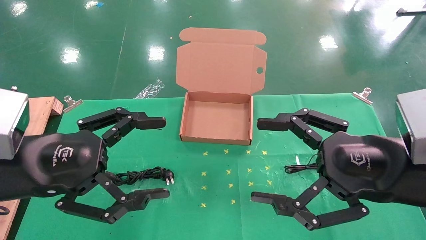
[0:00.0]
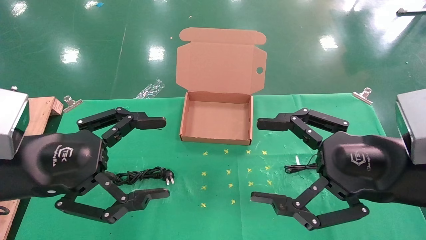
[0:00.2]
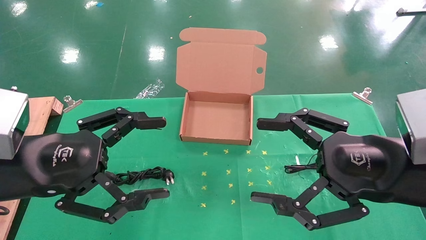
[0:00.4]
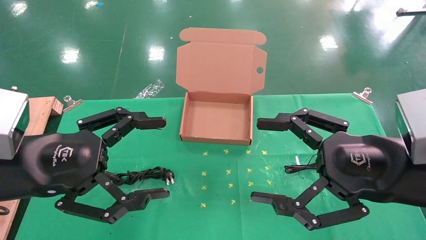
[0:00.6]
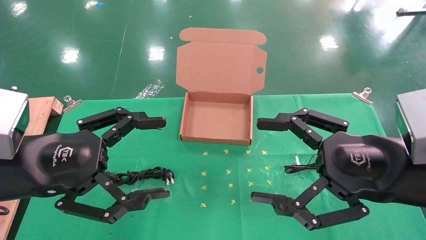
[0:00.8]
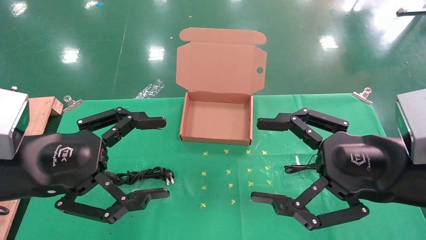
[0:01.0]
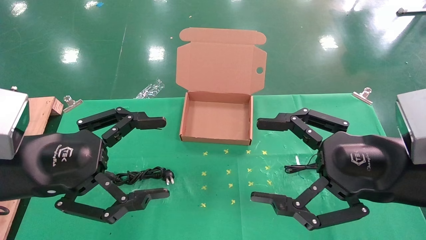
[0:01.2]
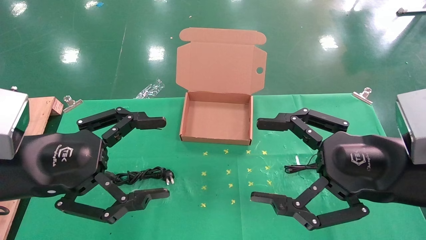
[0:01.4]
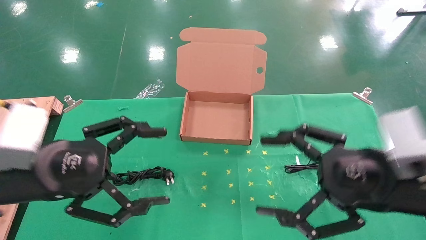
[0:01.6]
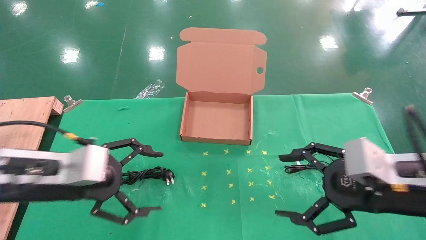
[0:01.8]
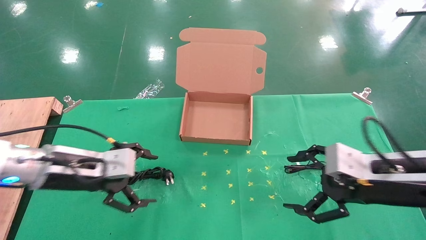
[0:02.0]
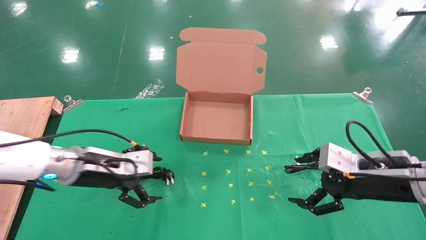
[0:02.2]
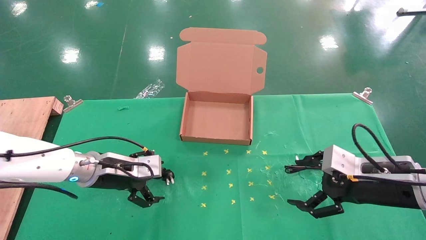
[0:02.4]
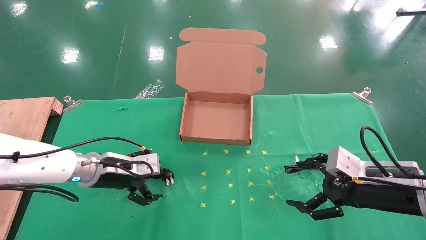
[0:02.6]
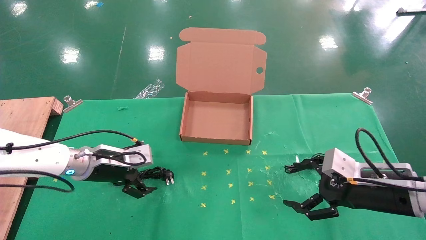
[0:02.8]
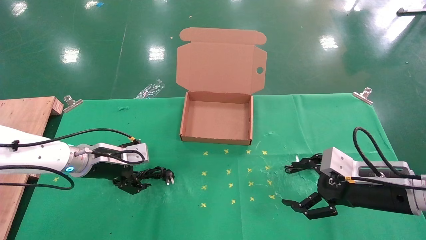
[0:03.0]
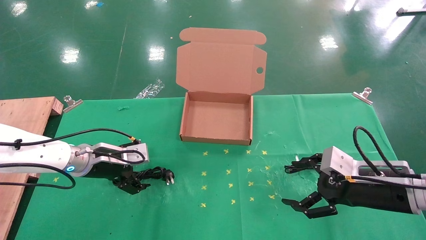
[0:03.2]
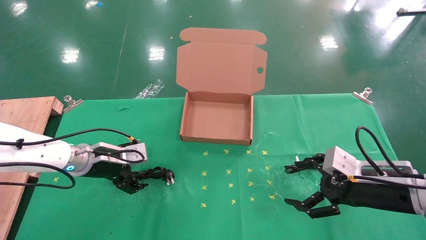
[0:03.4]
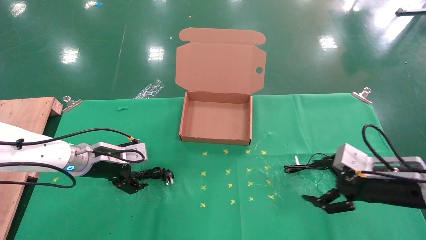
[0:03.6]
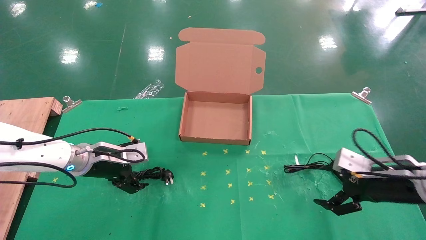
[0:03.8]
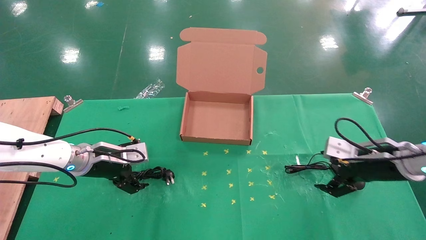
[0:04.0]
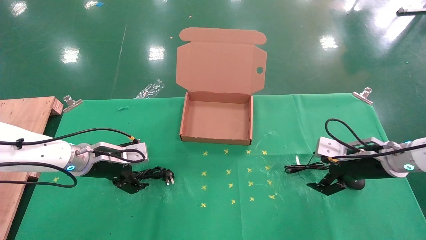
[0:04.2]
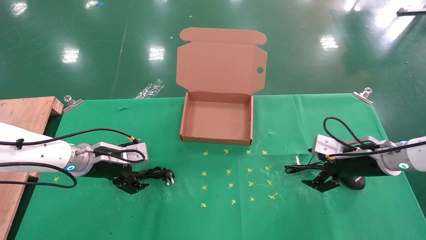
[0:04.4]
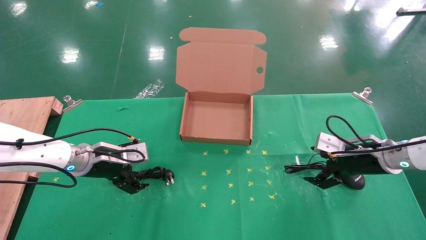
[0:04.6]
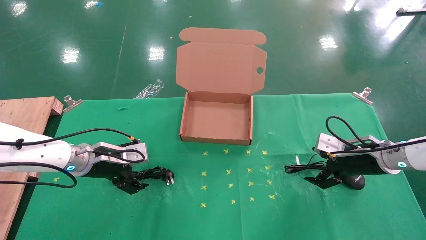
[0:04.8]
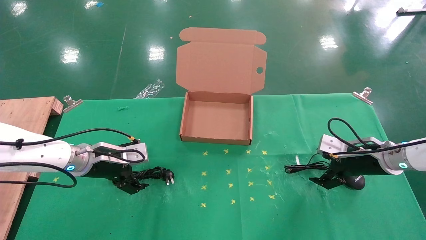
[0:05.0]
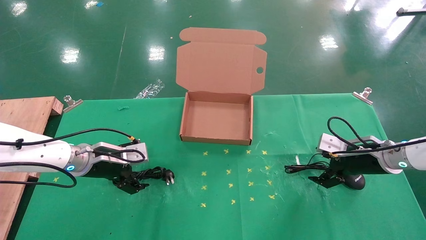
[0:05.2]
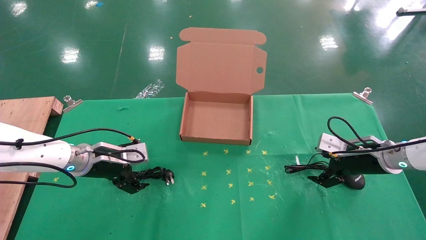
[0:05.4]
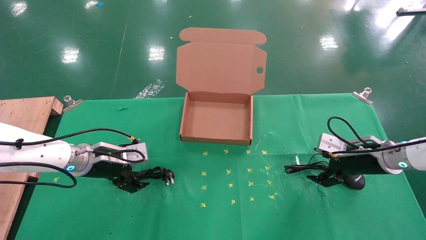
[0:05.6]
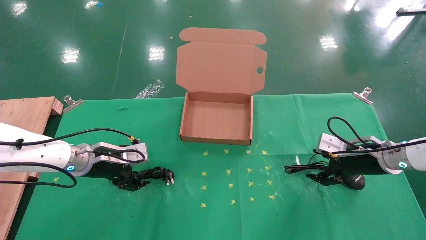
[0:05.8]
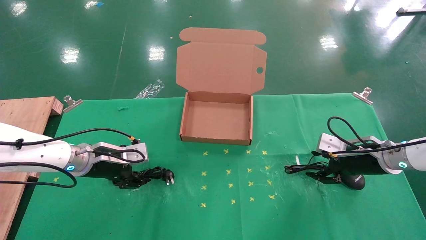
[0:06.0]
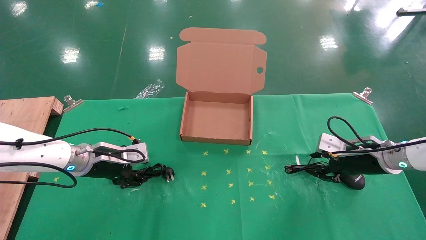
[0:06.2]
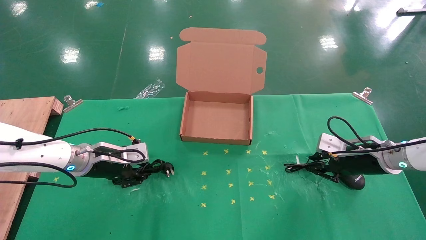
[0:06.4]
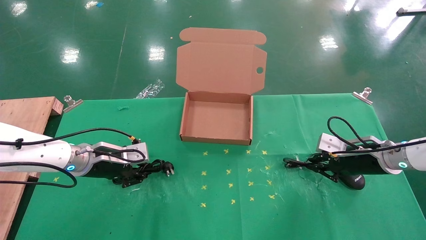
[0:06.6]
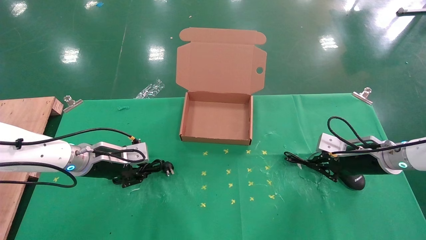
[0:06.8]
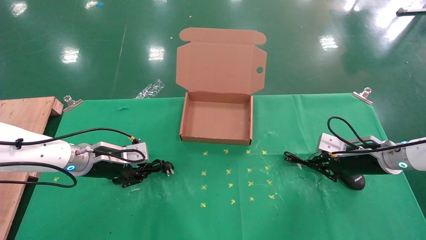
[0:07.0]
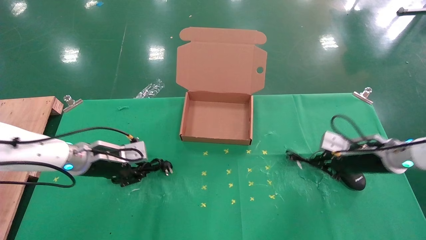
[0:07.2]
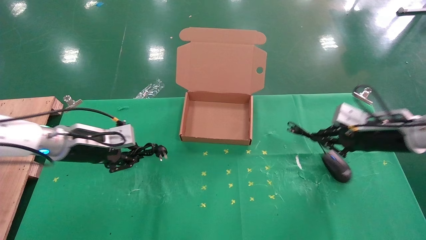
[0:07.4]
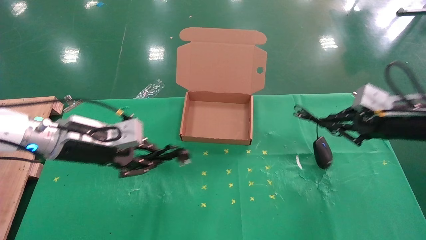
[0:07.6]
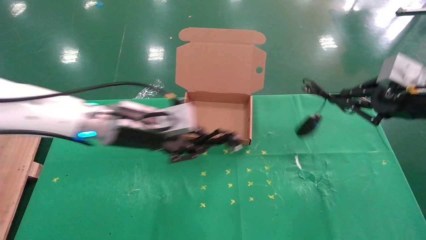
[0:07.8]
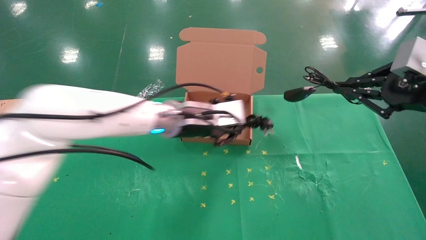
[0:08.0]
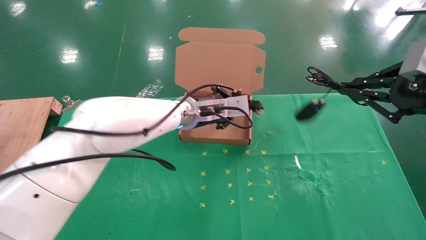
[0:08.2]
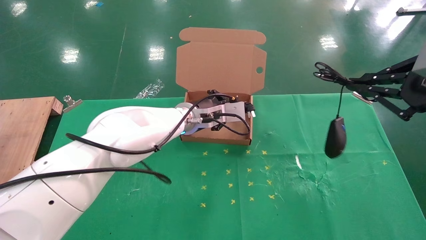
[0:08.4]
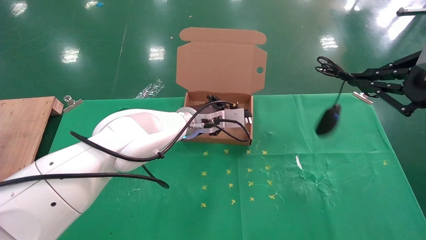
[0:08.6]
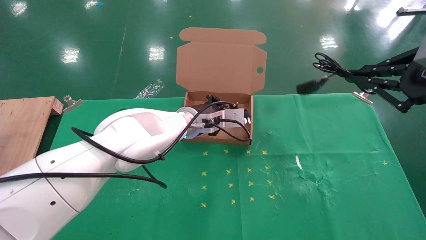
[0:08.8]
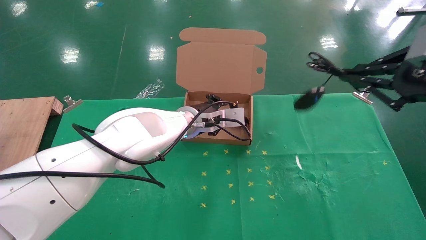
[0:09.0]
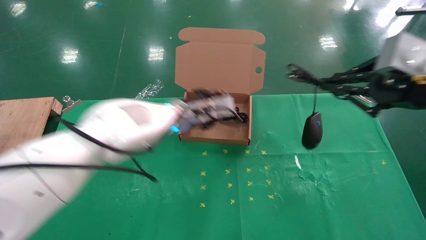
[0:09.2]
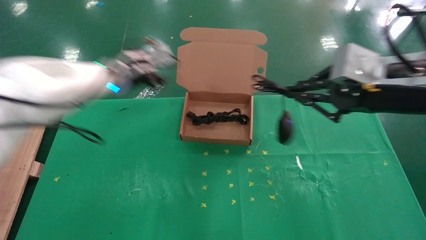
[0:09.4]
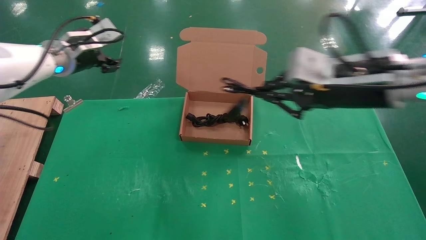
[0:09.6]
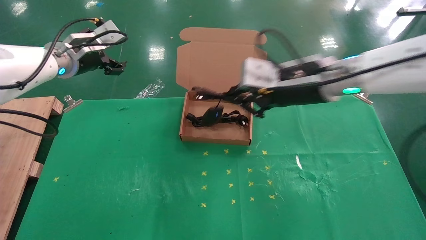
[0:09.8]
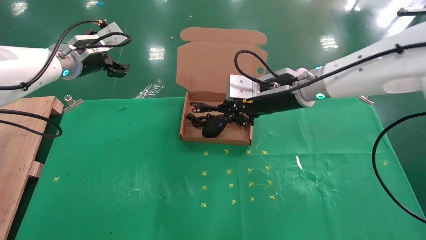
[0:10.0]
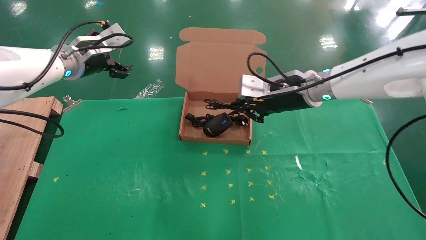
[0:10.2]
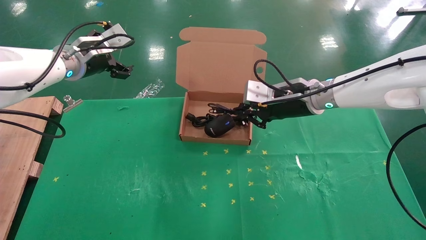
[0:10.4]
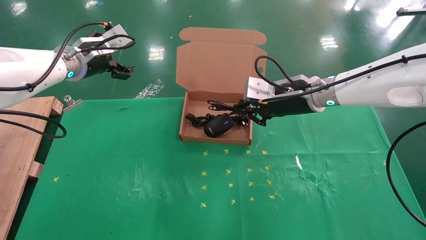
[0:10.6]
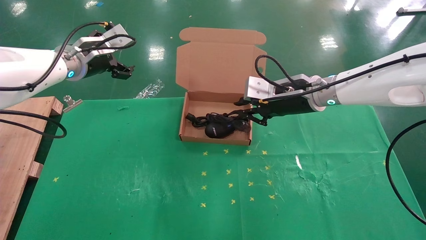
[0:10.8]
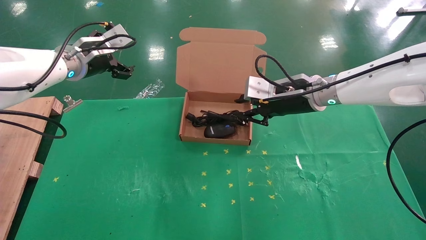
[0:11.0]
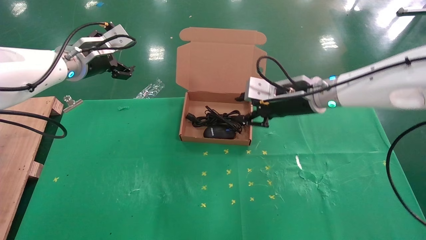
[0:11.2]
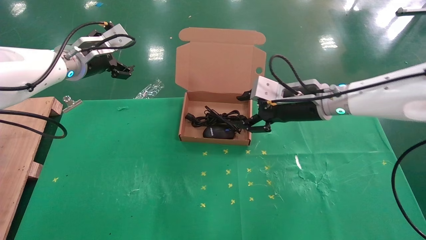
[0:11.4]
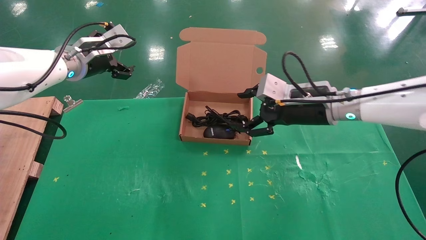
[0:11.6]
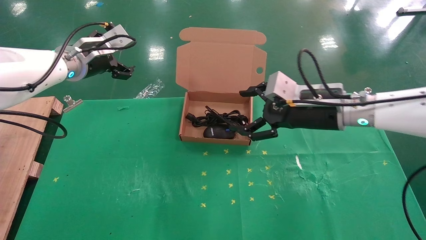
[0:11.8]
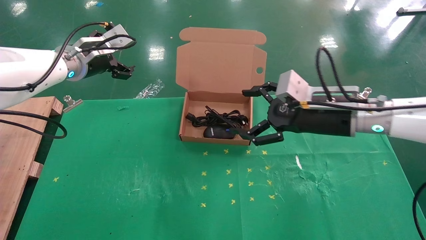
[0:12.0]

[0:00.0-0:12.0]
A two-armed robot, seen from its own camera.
Task of the whole recording: grasp data cable left put into box grasp mouse right put into box.
Step, 0:01.6 to 0:06.8: Simultaneously pick up the mouse and power cord from the accessory packaging area.
Step, 0:07.0 to 0:10.6: Place the mouse and power cord into the box.
0:01.6 to 0:03.0: The right gripper travels downward and forward by about 10 cm. The left gripper heads forward and downward, covering about 20 cm.
0:03.0 to 0:04.4: The right gripper moves forward, some 10 cm.
0:04.4 to 0:06.0: The grippers move only a little.
0:06.0 to 0:07.6: The left gripper moves upward and to the right, about 10 cm, and closes up, while the right gripper is displaced upward and backward by roughly 15 cm, and closes up.
0:07.6 to 0:09.0: The right gripper heads backward and upward, covering roughly 15 cm; the left gripper moves to the right and forward, roughly 20 cm.
0:09.0 to 0:10.4: The right gripper travels forward and to the left by some 25 cm; the left gripper goes some 25 cm to the left and upward, and opens up.
0:10.4 to 0:12.0: The right gripper shifts about 10 cm backward, and opens up.

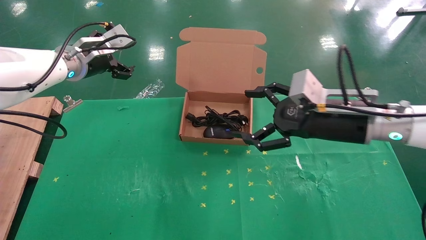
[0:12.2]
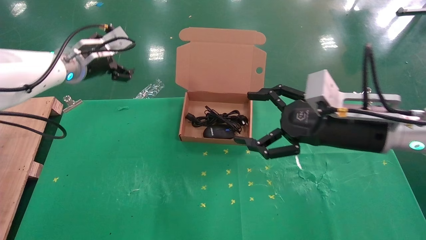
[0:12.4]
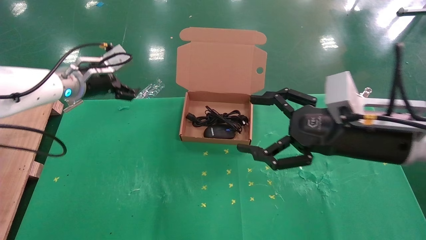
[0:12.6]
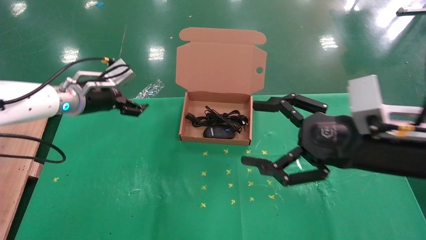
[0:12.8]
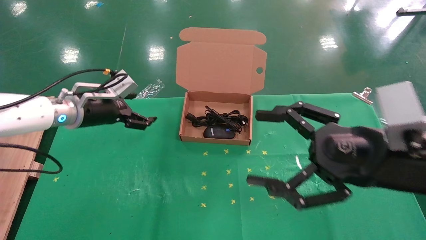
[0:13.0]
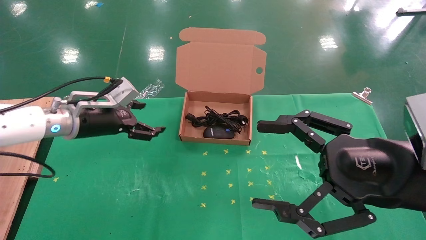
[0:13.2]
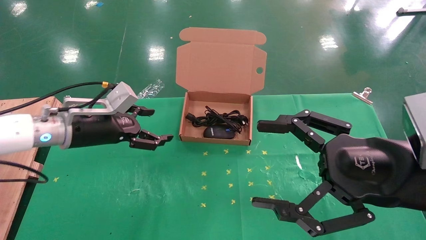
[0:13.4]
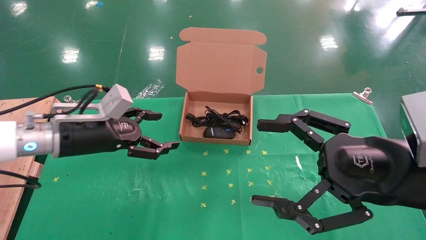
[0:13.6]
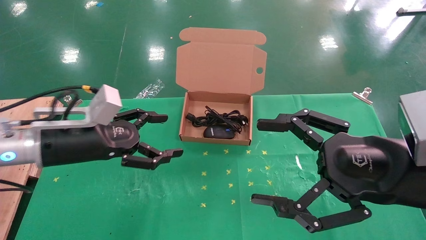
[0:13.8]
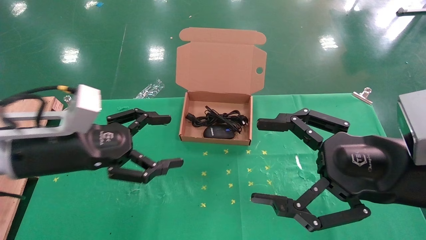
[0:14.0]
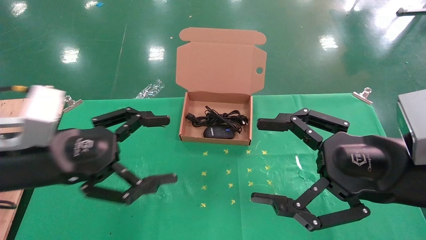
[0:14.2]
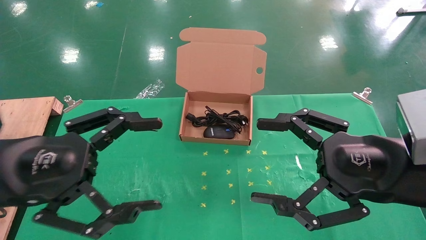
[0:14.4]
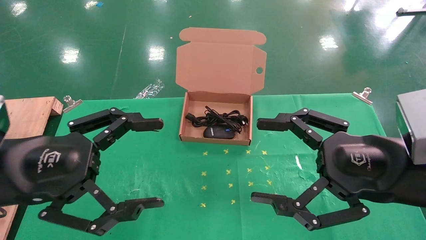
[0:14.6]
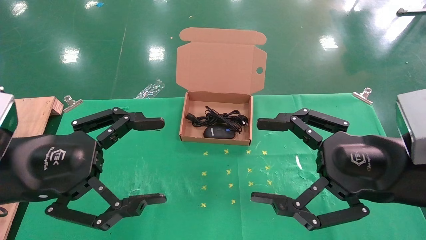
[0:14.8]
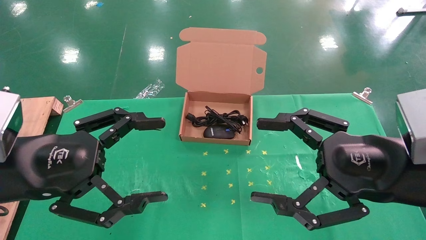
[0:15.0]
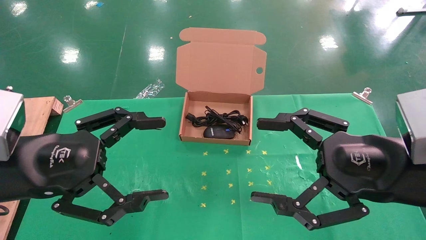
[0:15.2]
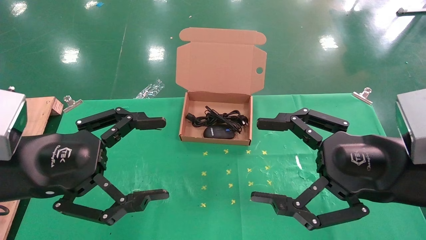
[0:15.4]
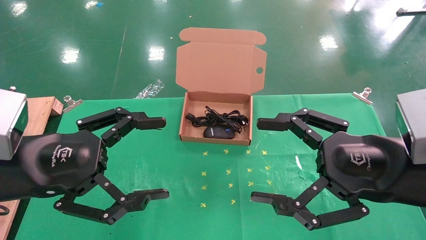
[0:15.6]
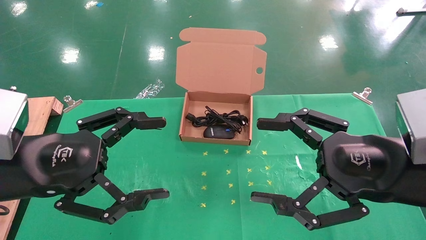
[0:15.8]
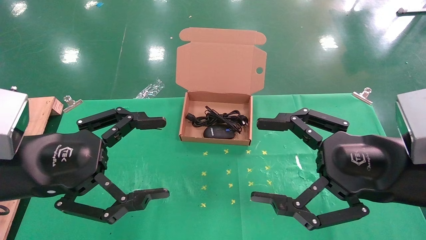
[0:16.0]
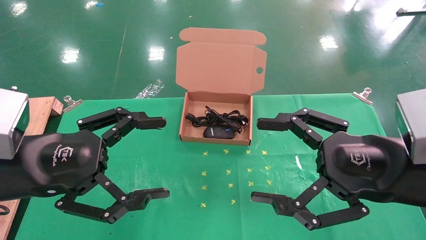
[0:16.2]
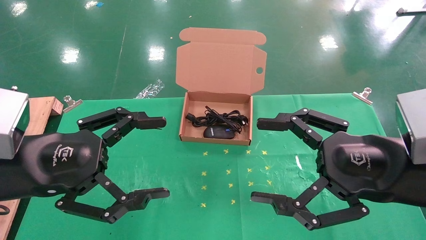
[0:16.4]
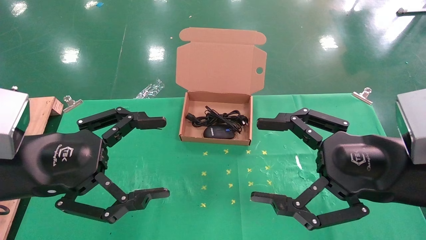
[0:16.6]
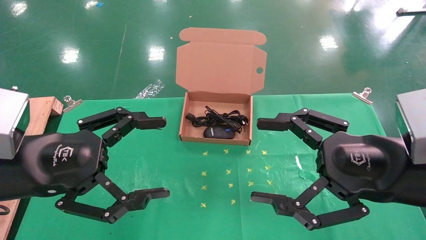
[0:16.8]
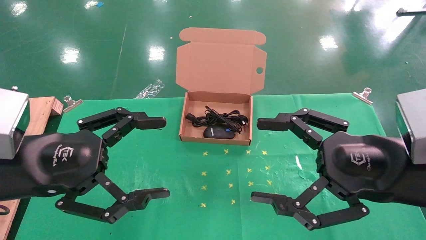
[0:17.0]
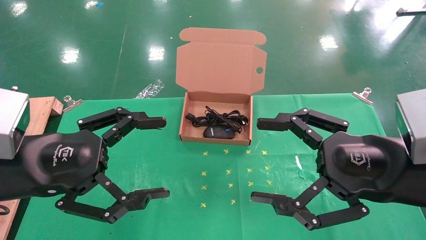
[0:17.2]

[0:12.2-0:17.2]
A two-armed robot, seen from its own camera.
Task of the whole recording: grasp data cable left put into box grasp mouse right put into box.
0:12.2 to 0:13.8: The left gripper goes roughly 20 cm backward and downward; the right gripper heads backward, covering roughly 15 cm.
0:13.8 to 0:15.6: The left gripper heads backward, covering some 10 cm.
0:15.6 to 0:17.2: Neither gripper changes place.
